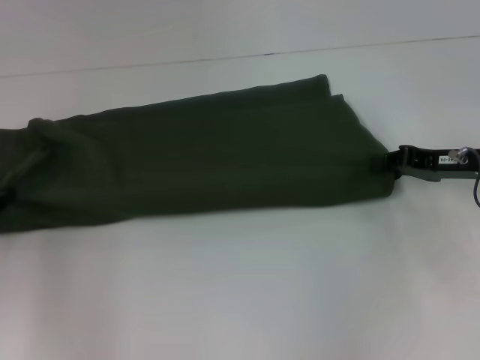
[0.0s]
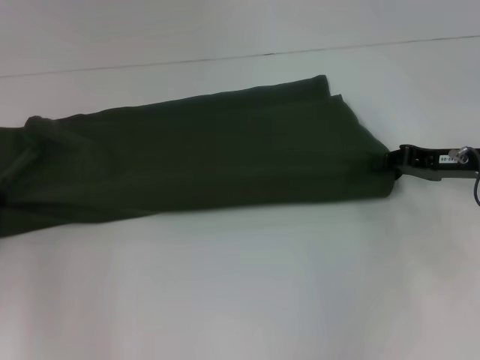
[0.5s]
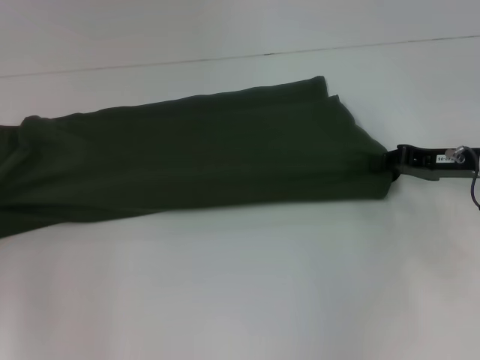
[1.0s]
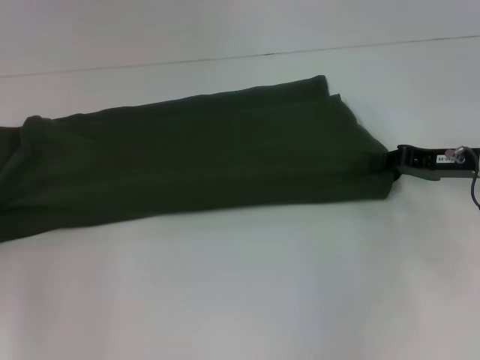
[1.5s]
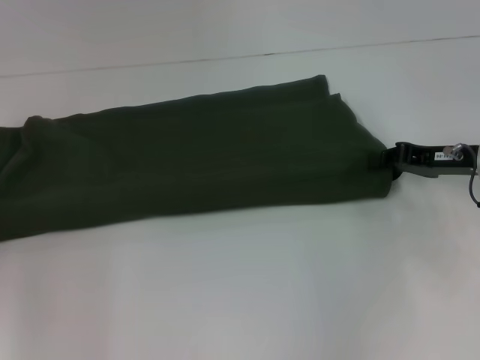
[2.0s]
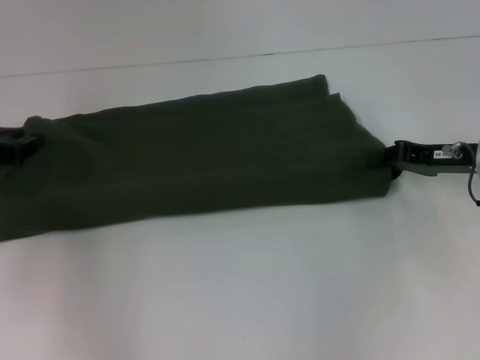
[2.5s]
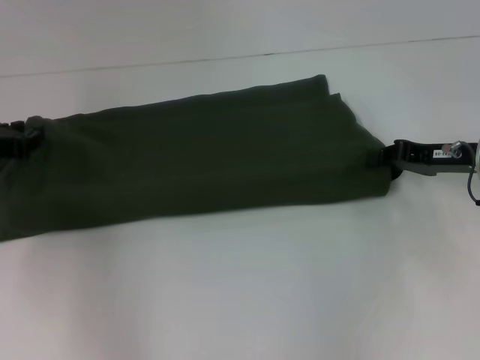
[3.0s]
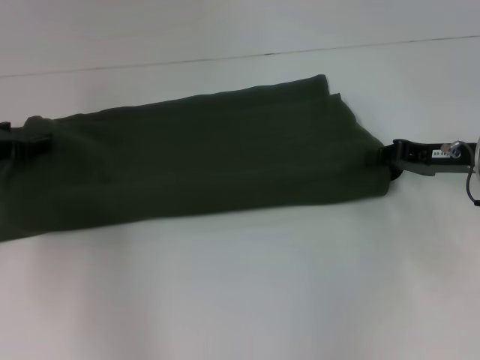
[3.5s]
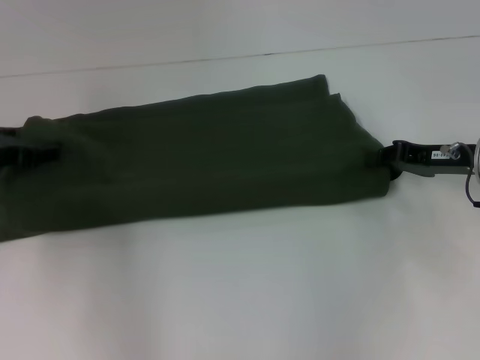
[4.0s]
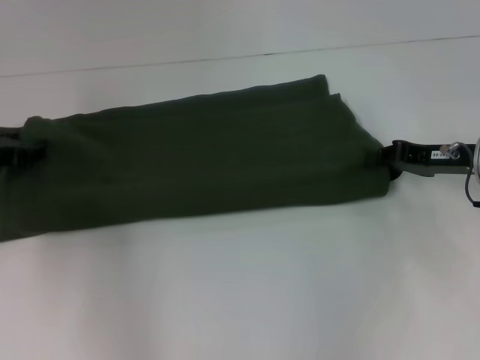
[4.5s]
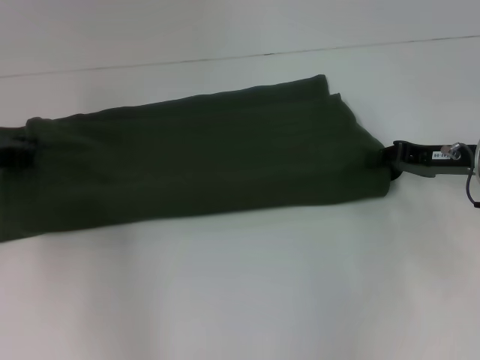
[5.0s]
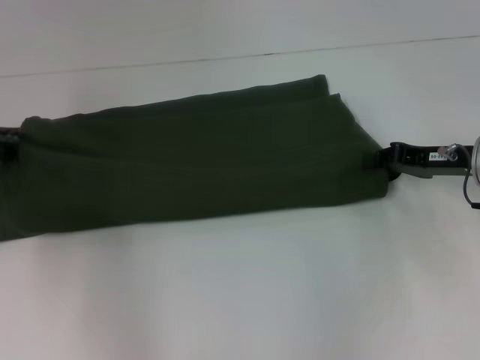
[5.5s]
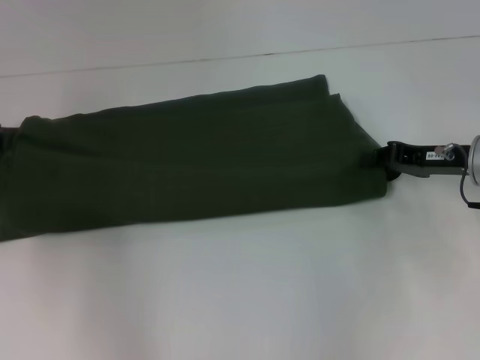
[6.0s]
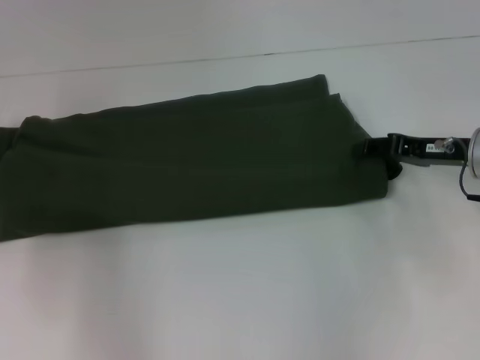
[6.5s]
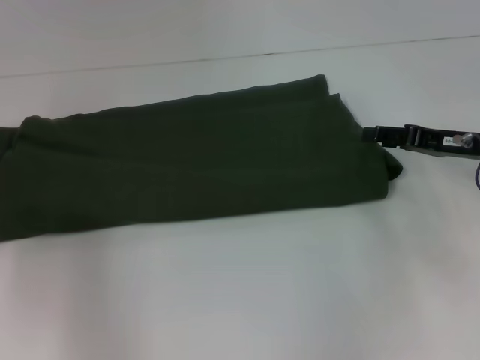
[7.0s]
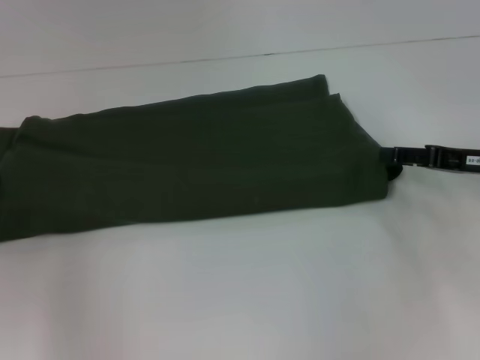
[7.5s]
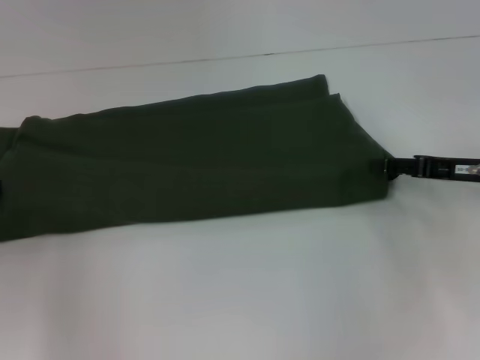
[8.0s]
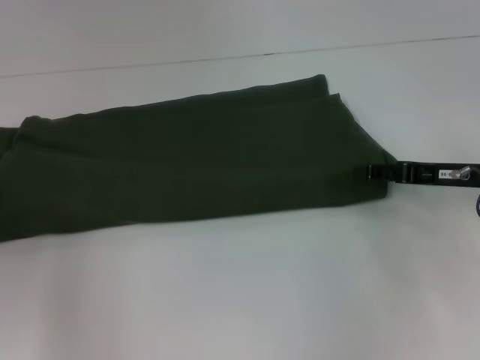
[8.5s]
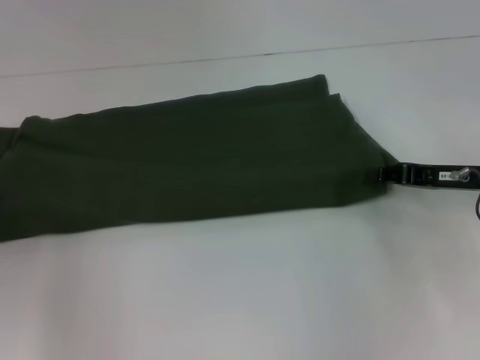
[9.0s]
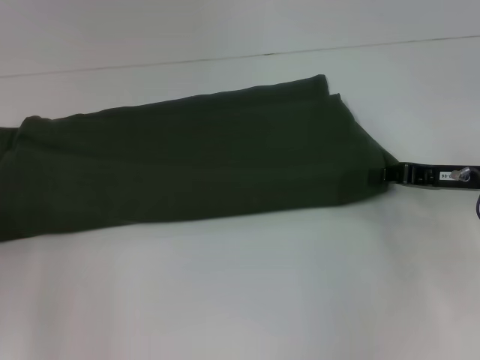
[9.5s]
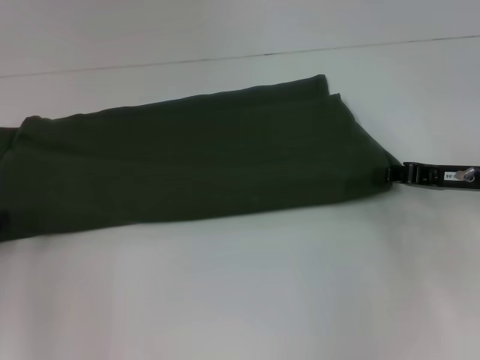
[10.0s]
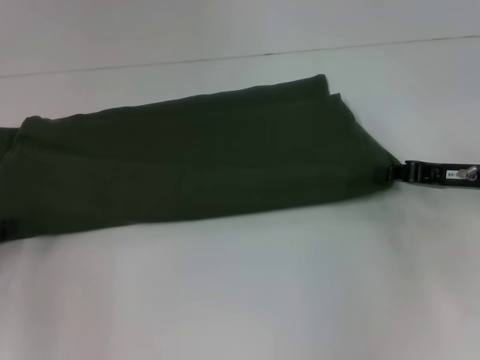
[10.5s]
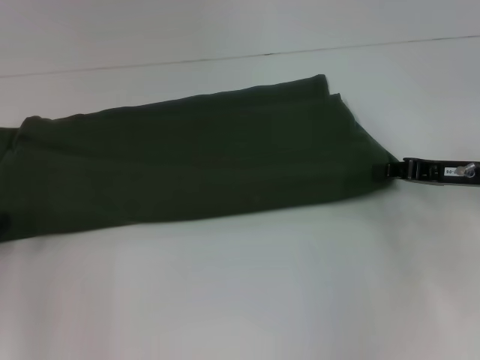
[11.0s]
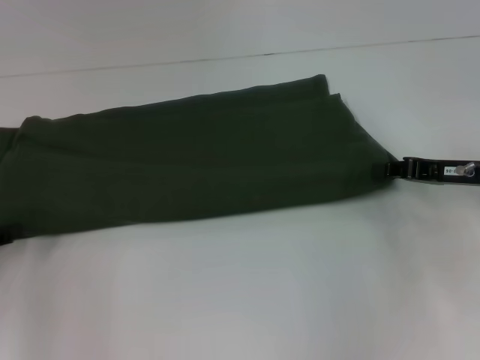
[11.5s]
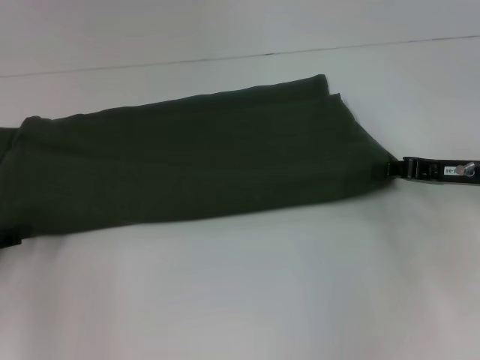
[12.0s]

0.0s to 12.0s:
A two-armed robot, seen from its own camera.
0.0s to 2.0s: The grippers move only a little.
2.0s to 4.0s: The left gripper heads to the right and forward, covering roughly 10 cm, and opens its fingers.
4.0s to 6.0s: The left gripper closes up.
6.0s to 8.0s: The left gripper travels backward by about 10 cm, and opens; the right gripper opens its fingers.
8.0s to 10.0s: The right gripper closes up.
10.0s to 12.0s: The grippers make only small movements.

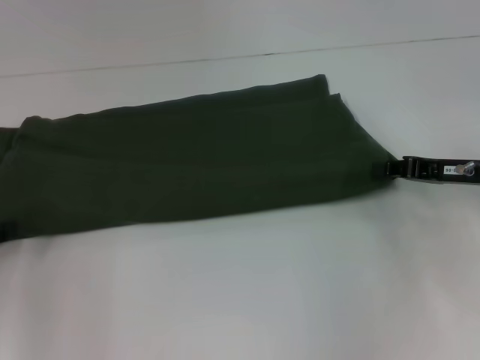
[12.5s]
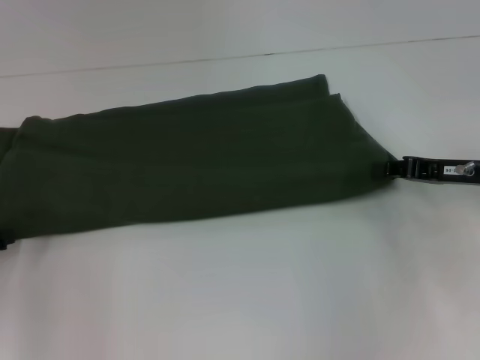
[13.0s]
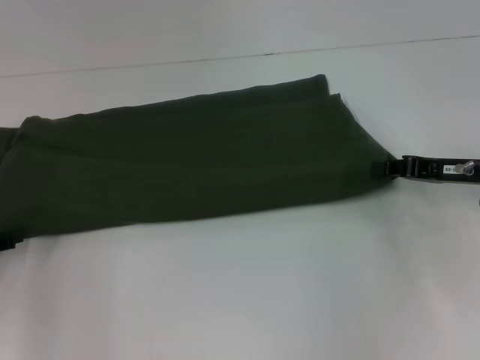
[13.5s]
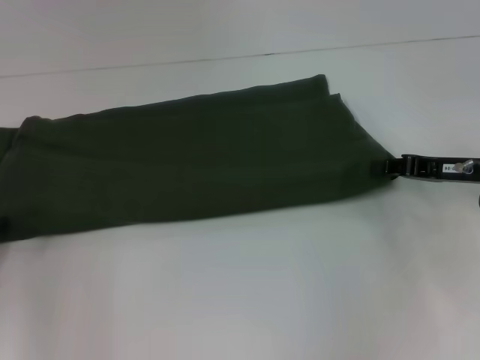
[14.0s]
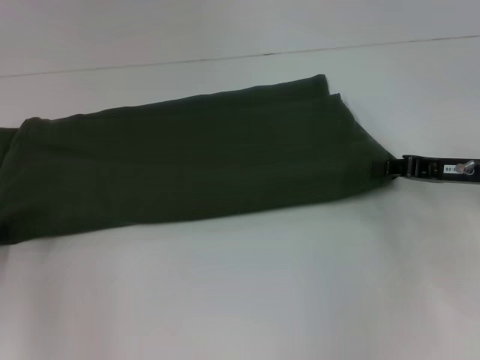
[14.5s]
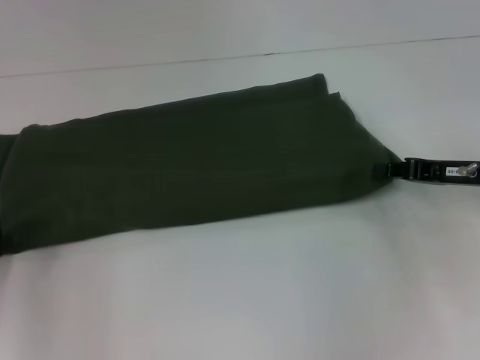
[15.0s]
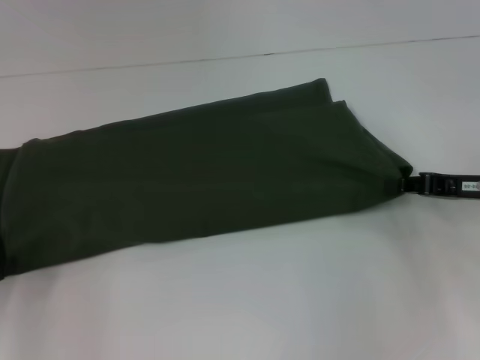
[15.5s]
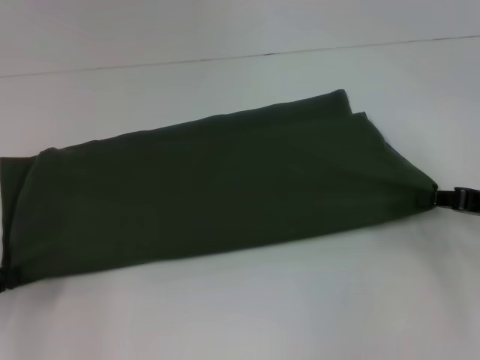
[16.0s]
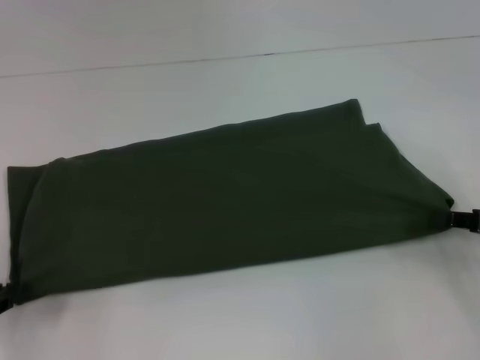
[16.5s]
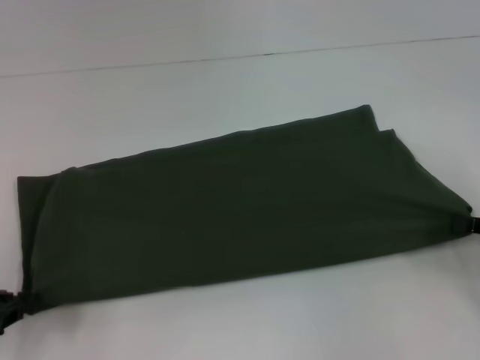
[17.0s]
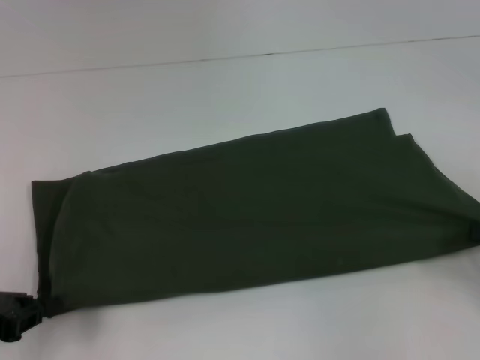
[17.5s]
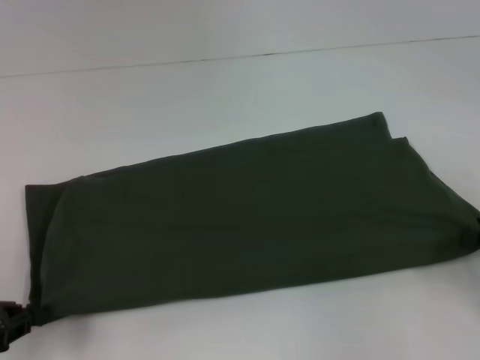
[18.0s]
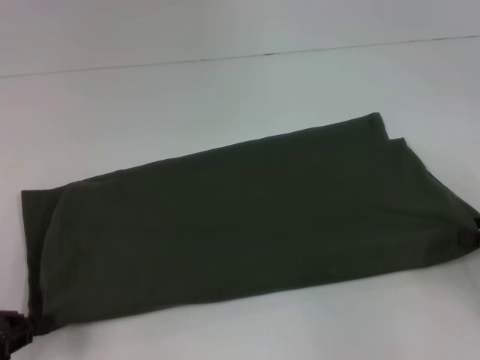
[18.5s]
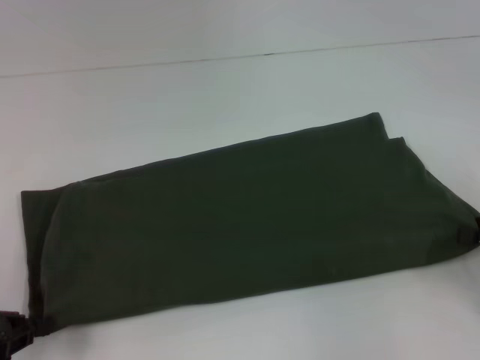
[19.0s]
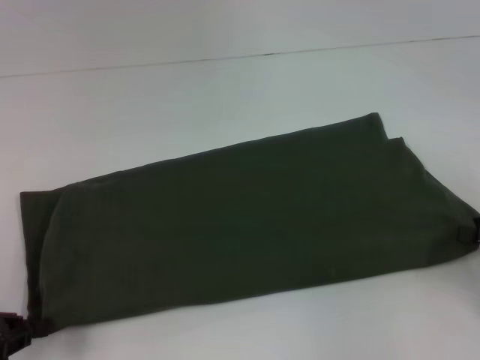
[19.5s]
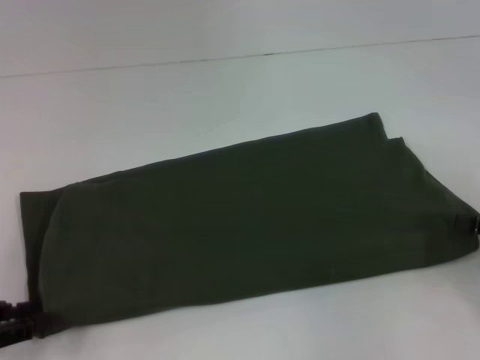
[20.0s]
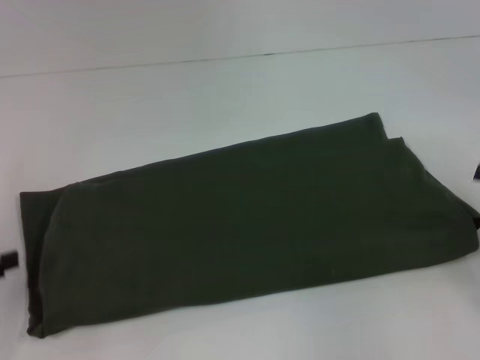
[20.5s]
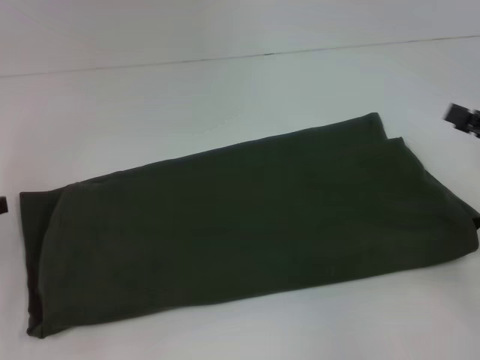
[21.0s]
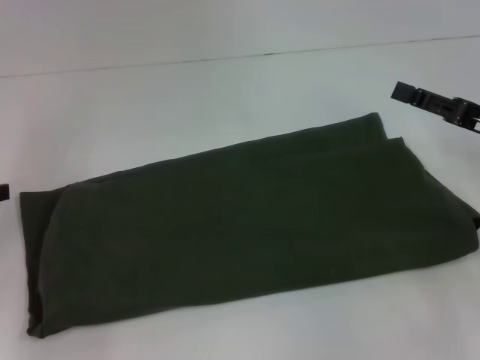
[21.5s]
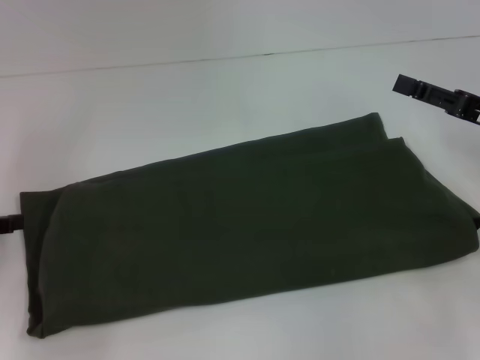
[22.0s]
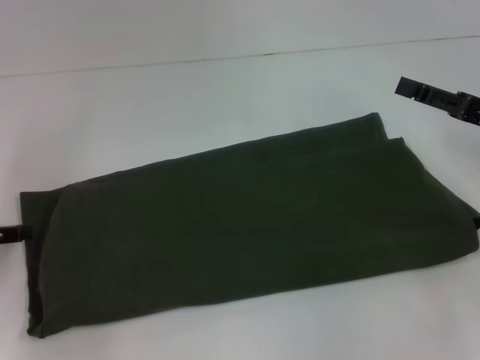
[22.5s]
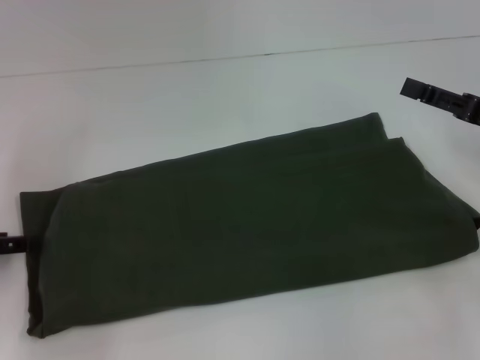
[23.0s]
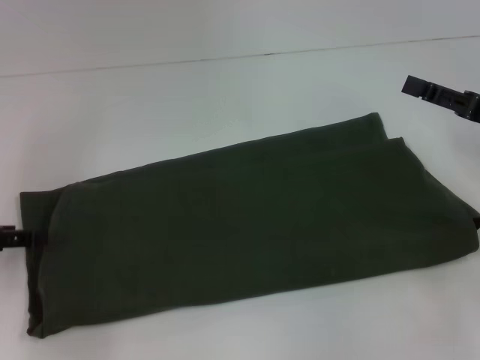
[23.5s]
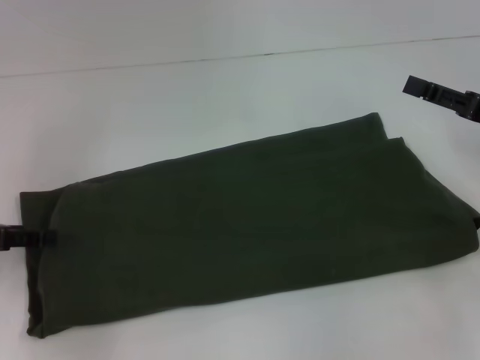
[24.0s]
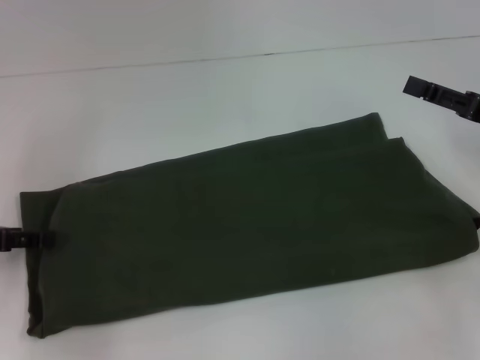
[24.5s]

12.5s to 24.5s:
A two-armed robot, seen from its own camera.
14.5s to 16.5s: The right gripper shifts roughly 10 cm backward and to the right.
16.5s to 18.5s: The grippers move only a little.
18.5s to 20.5s: The left gripper opens up.
20.5s to 22.5s: The right gripper moves forward and to the left, approximately 10 cm, while the left gripper is displaced forward by some 5 cm.
22.5s to 24.5s: The grippers move only a little.

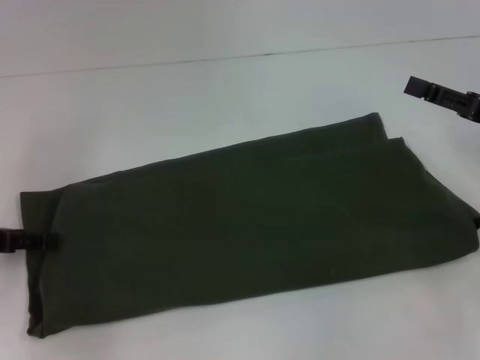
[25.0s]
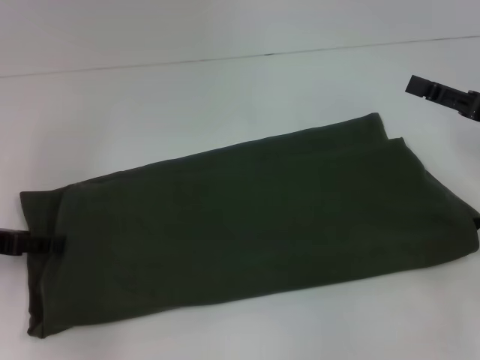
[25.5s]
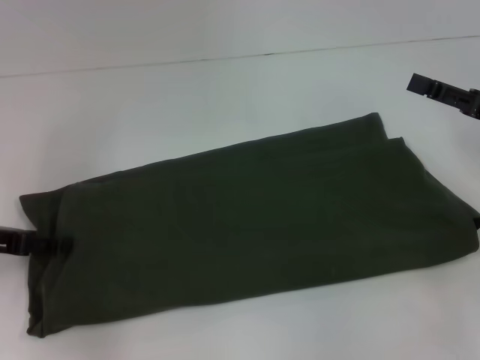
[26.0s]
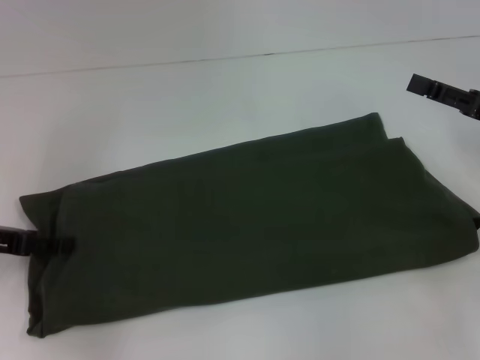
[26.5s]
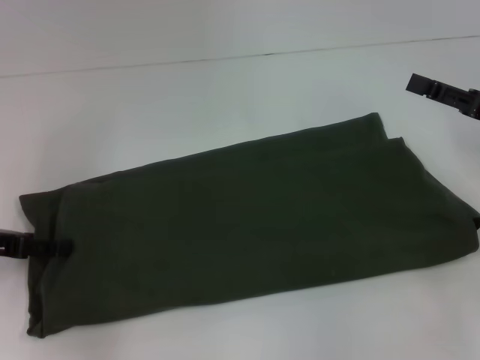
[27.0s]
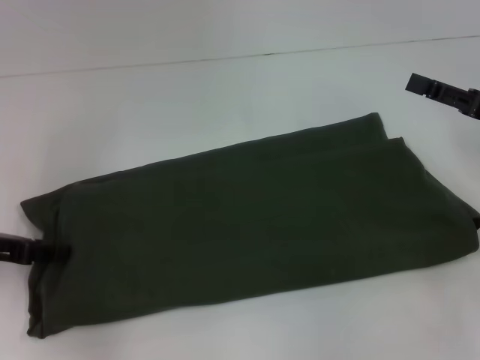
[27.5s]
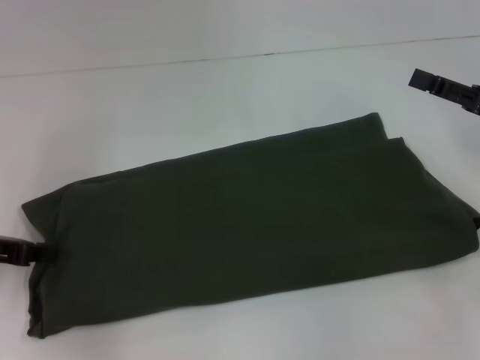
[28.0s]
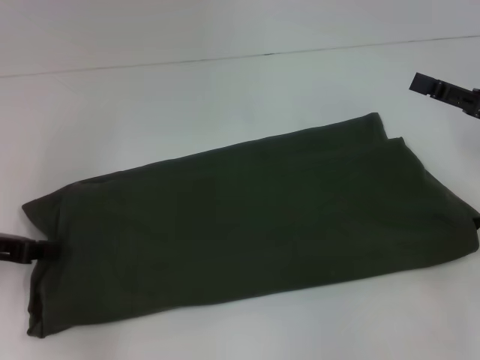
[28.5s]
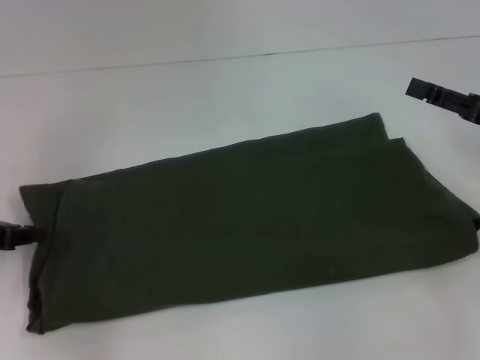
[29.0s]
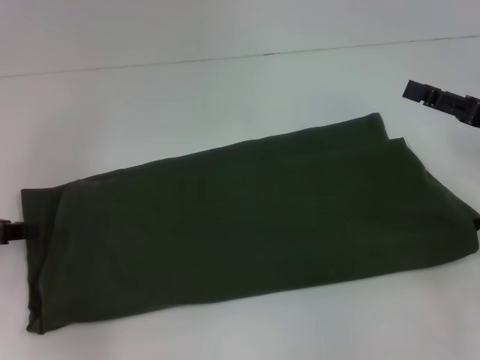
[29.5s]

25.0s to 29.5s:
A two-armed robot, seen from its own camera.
25.0s to 27.0s: The grippers make only small movements.
27.0s to 29.5s: The left gripper closes up.
